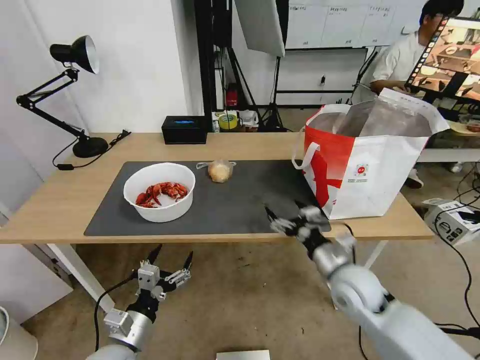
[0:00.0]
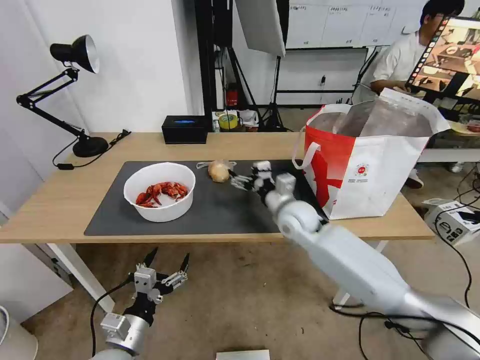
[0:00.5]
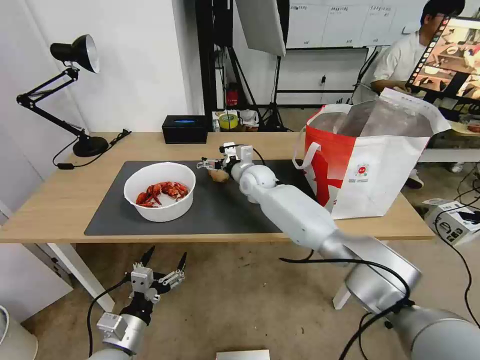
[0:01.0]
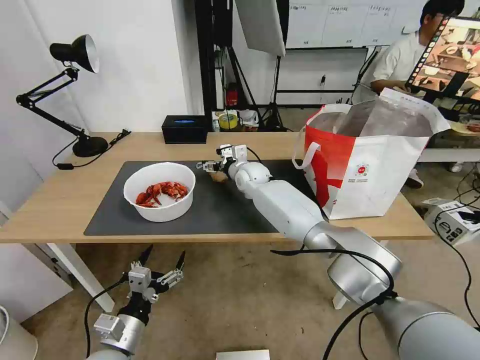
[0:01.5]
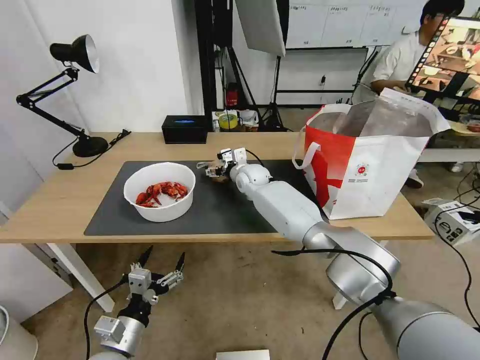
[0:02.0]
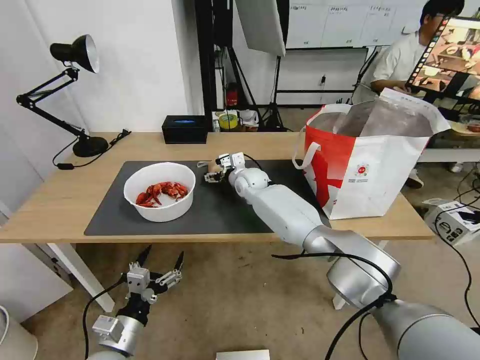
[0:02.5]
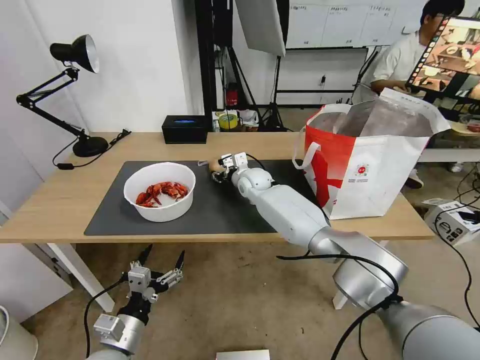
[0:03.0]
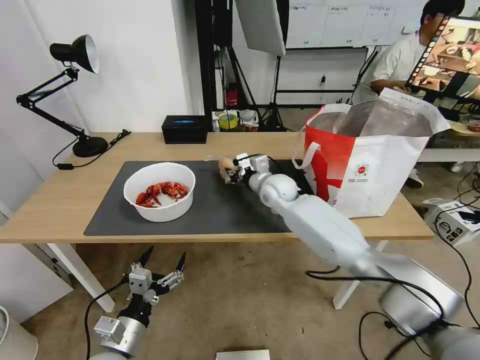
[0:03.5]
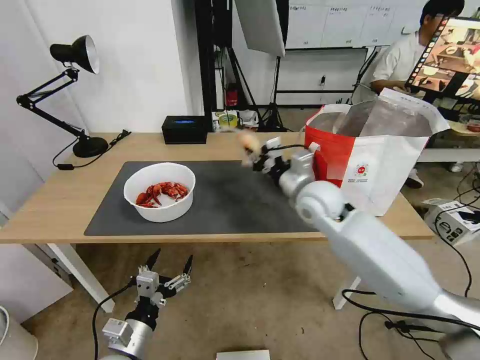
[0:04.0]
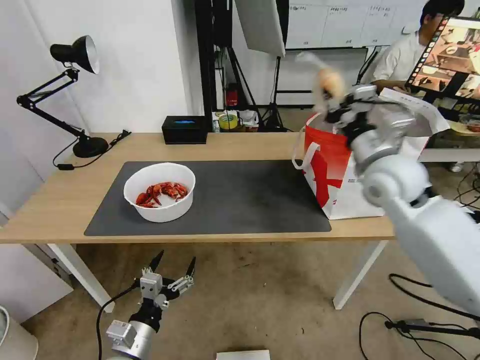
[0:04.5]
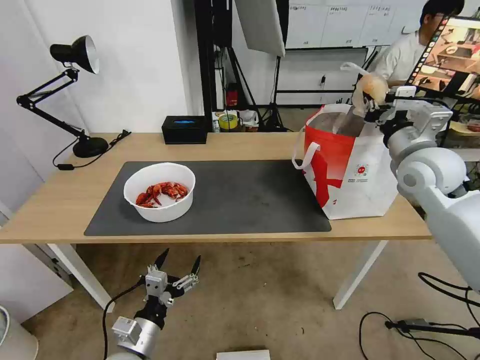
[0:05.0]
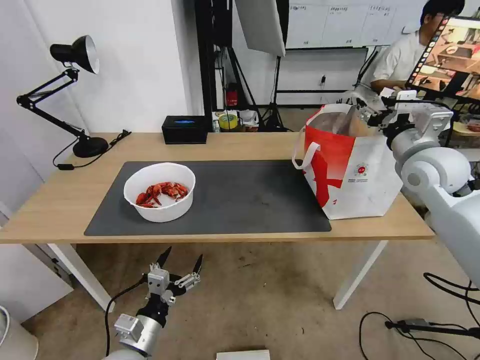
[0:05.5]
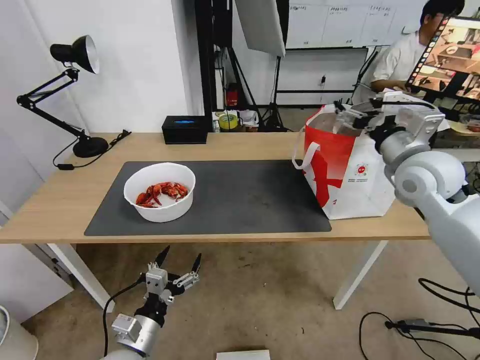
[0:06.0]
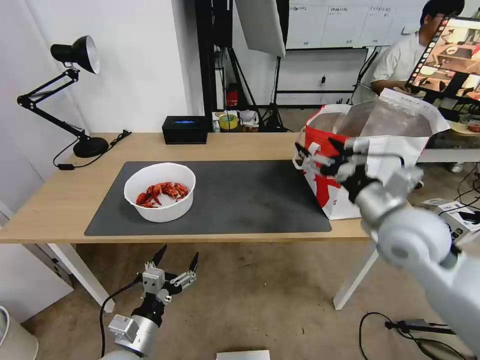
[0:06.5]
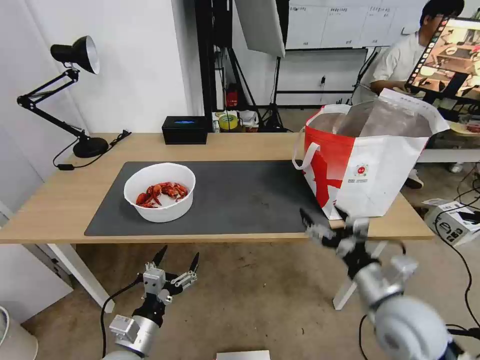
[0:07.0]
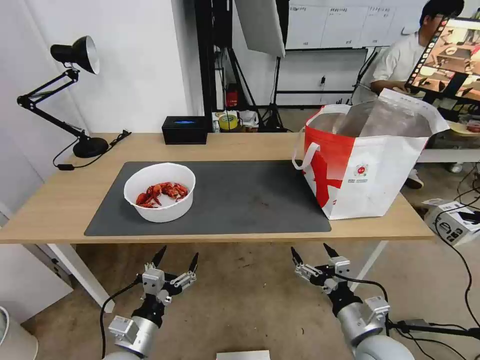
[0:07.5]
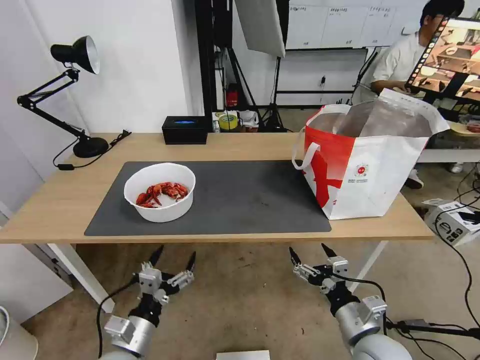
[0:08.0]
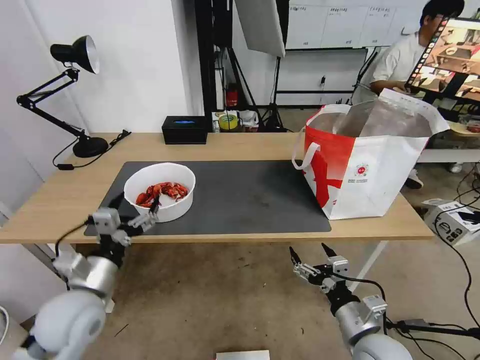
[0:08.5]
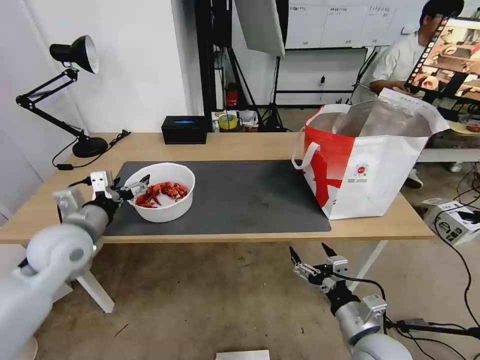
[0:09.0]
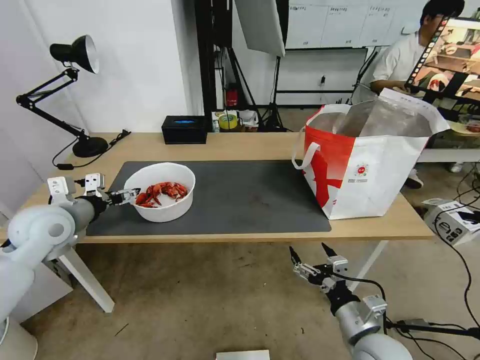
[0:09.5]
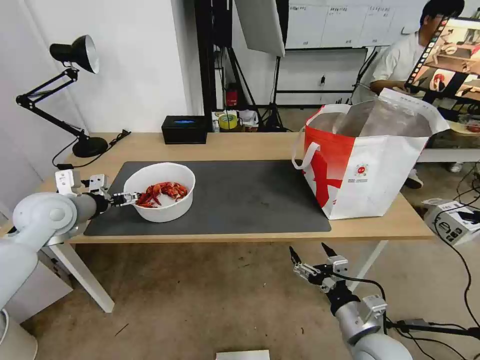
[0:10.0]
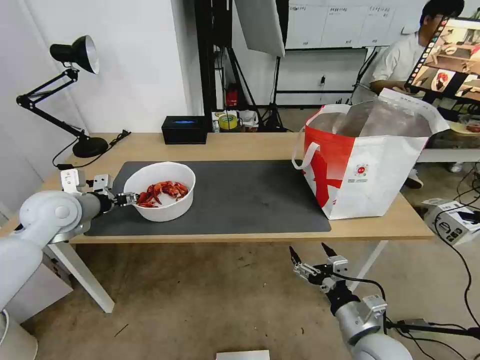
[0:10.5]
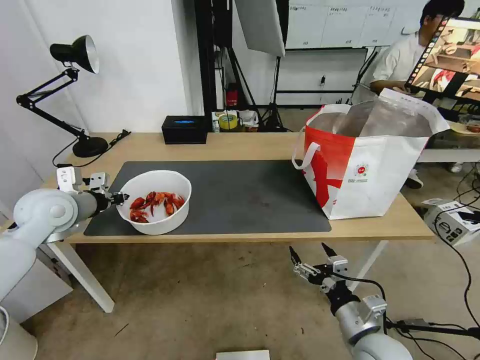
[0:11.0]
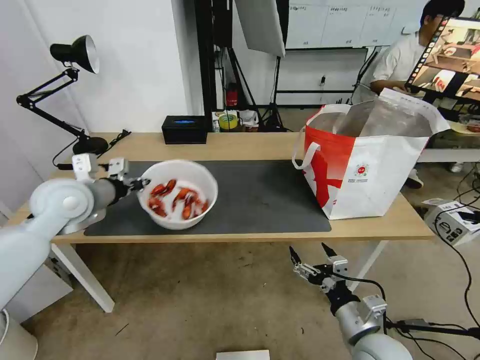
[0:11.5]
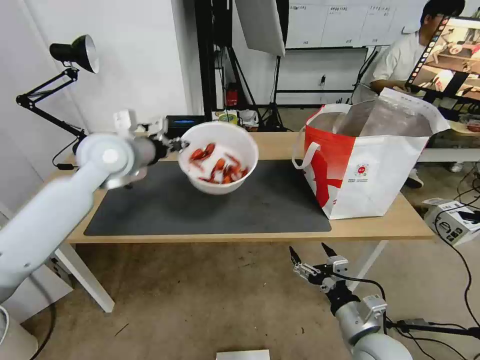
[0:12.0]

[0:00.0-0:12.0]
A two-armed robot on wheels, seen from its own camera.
Task of the whole recording: Pick up the trash from the table and place it into the takeout bag.
0:00.0 to 0:02.0: The right gripper moves forward and to the left, about 40 cm.
0:02.0 to 0:04.0: The right gripper is displaced backward, to the right and upward by approximately 25 cm, and closes up.
0:04.0 to 0:06.0: The right gripper is displaced to the right and upward by about 20 cm, and opens up.
0:06.0 to 0:08.0: The right gripper goes some 35 cm downward and backward.
0:08.0 to 0:10.0: The left gripper is displaced forward, upward and to the left by approximately 35 cm.
0:10.0 to 0:12.0: The left gripper moves to the right, upward and forward, roughly 15 cm, and closes its fingers.

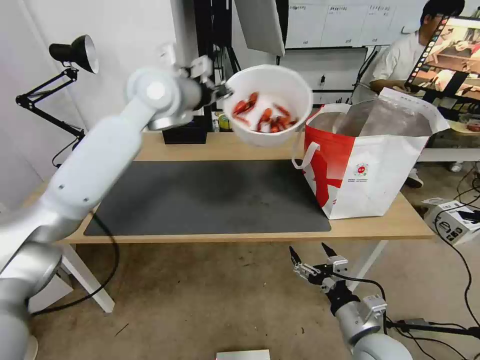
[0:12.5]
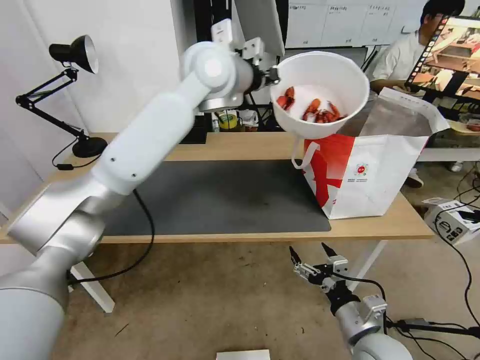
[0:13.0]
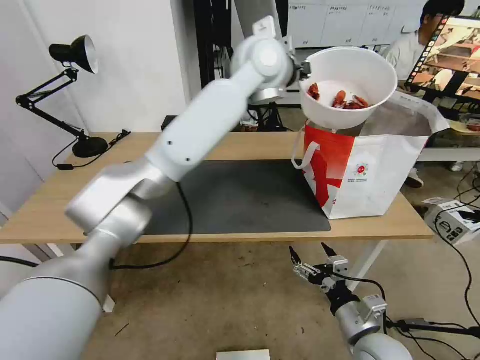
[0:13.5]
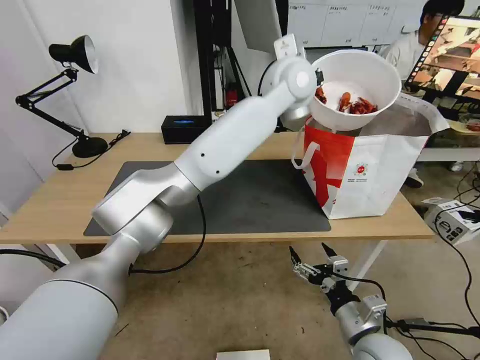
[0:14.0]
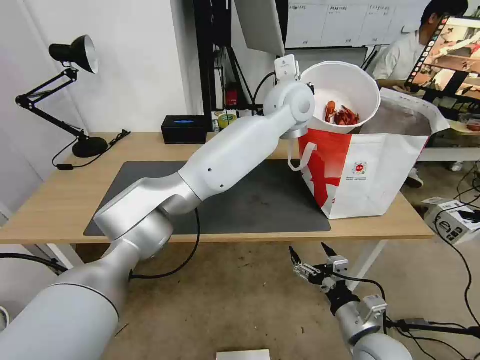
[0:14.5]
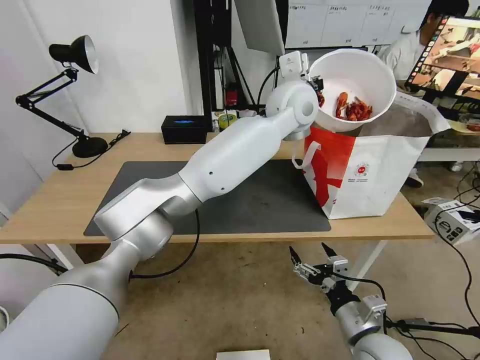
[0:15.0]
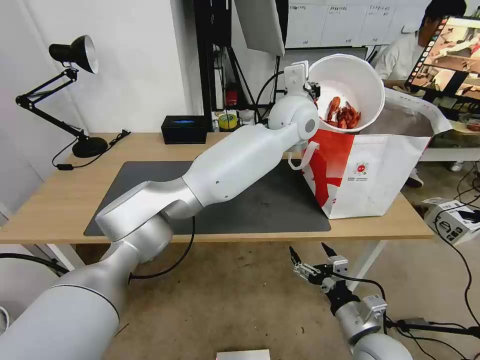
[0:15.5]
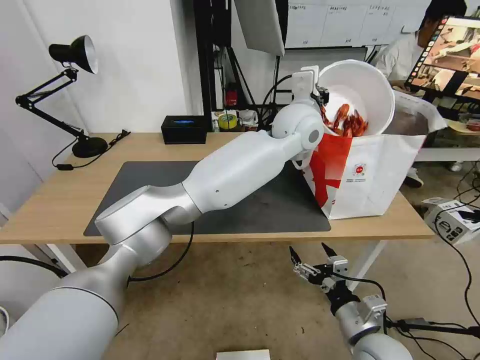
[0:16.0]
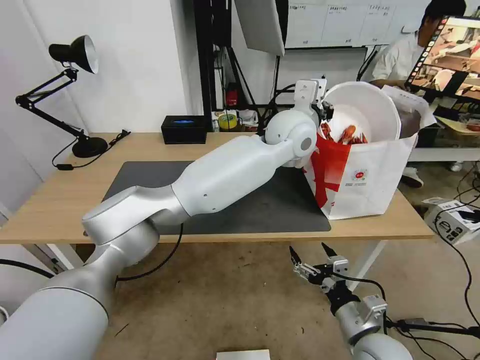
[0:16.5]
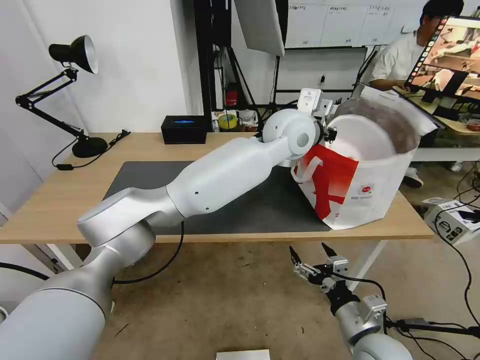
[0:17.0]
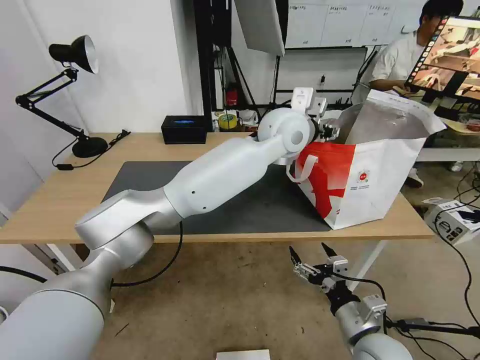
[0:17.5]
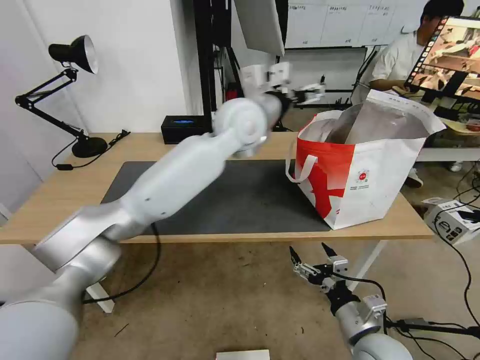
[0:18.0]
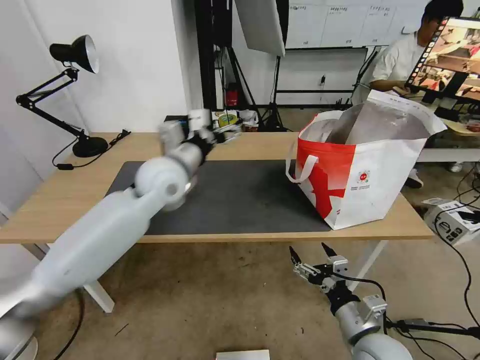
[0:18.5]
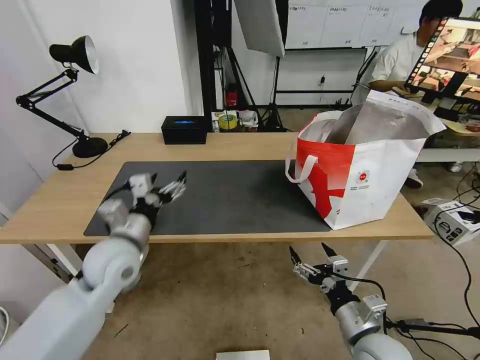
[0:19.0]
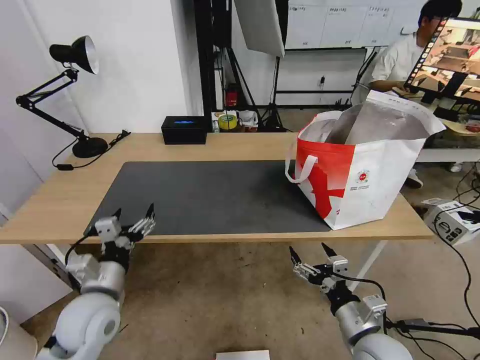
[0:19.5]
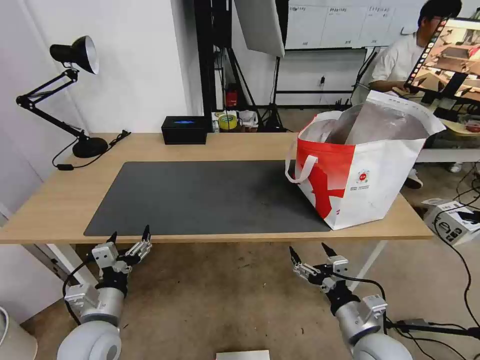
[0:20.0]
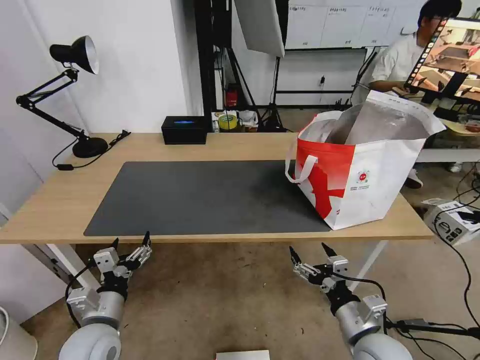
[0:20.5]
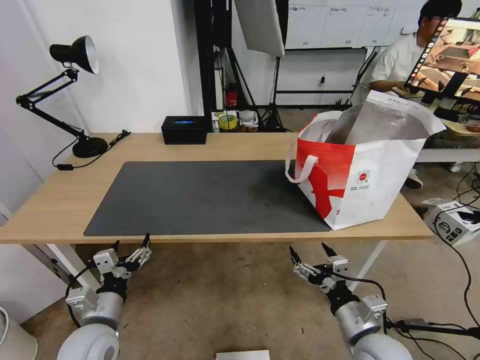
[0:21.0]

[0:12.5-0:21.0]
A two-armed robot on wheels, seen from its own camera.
Task of the whole recording: Pick up the trash from the table and place it into the takeout bag.
0:12.5 to 0:14.5: The left gripper shifts about 25 cm to the right.
0:14.5 to 0:16.5: The left gripper changes place by some 5 cm.
0:16.5 to 0:19.0: The left gripper travels to the left, backward and downward by roughly 40 cm, and opens its fingers.
0:19.0 to 0:21.0: The left gripper heads backward and downward, covering about 15 cm.

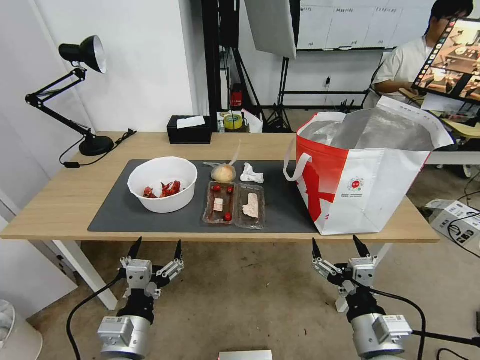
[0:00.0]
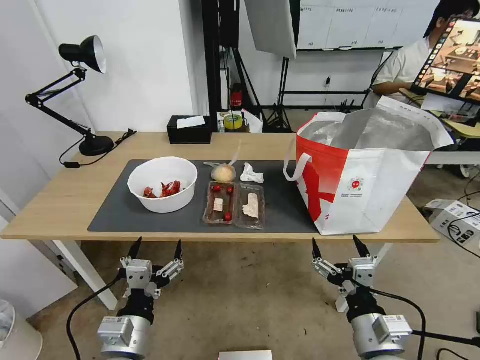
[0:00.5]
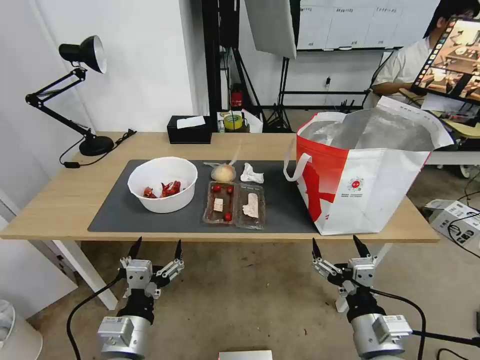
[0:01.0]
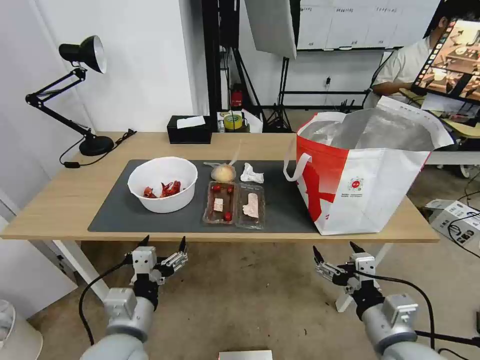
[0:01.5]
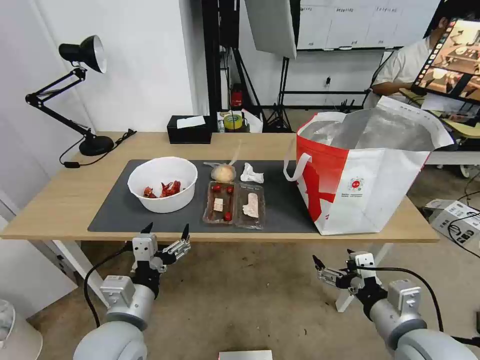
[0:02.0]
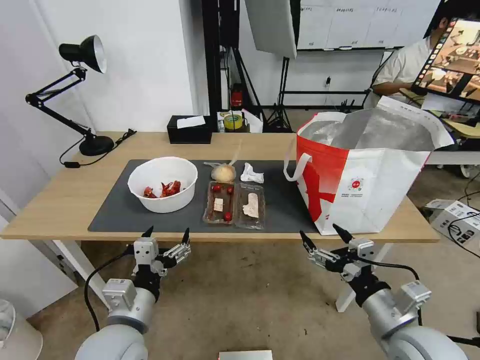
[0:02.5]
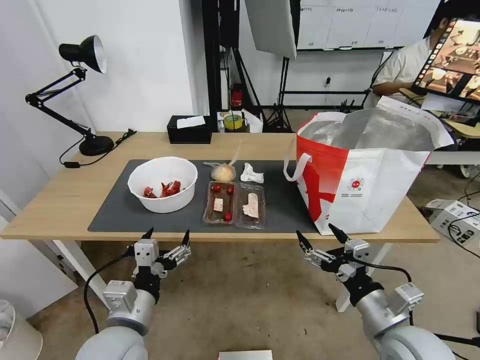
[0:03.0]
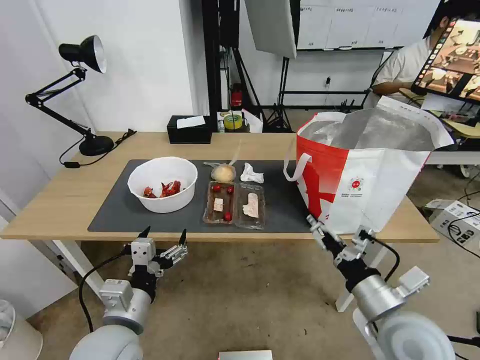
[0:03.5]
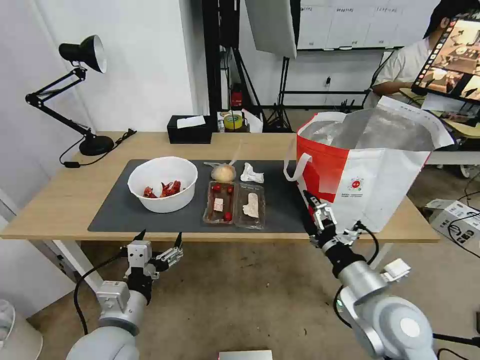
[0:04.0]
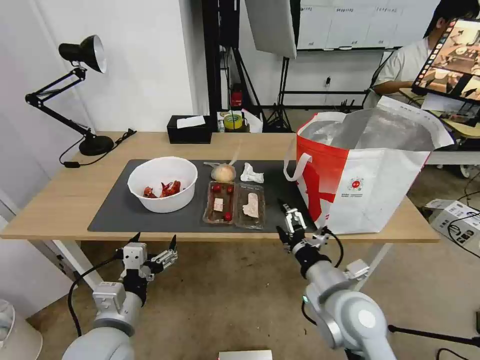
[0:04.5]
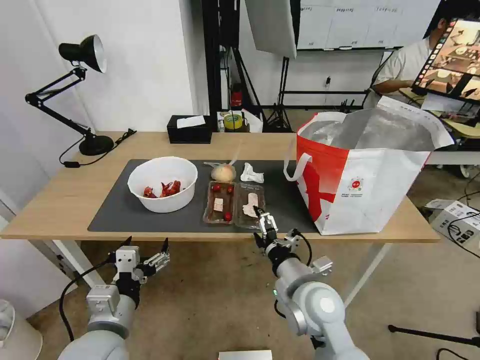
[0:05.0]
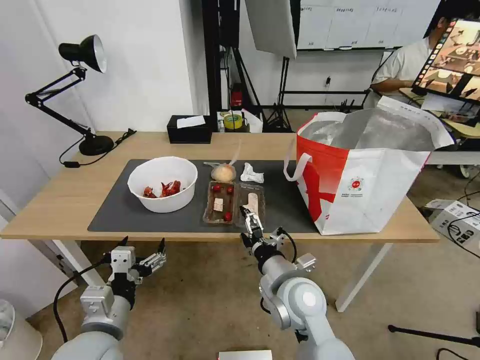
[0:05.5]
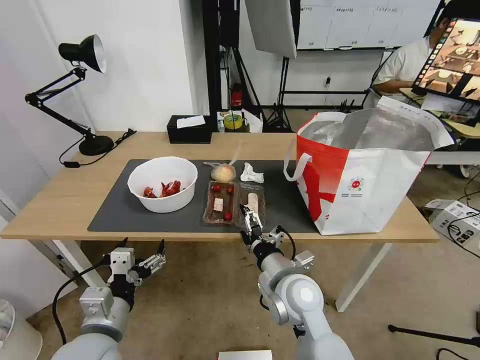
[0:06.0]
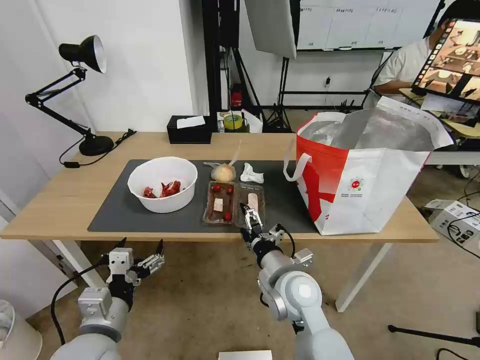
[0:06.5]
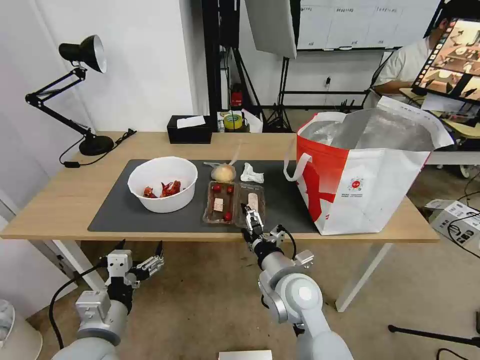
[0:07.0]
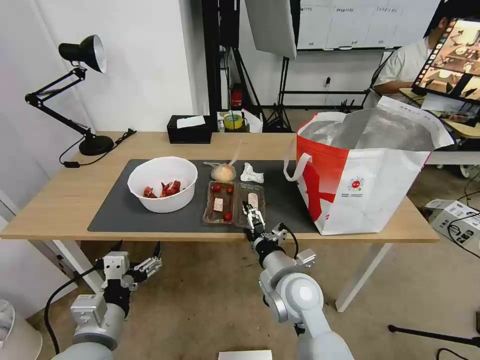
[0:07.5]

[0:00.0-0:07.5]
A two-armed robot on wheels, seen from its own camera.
Task of the whole recording: Pick up the trash from the table and place it into the takeout bag.
0:02.0 to 0:04.0: The right gripper heads forward, covering approximately 5 cm.
0:04.0 to 0:05.5: The right gripper is displaced to the left by some 15 cm.
0:05.5 to 0:07.5: The grippers stay close to where they were, moving slightly.
